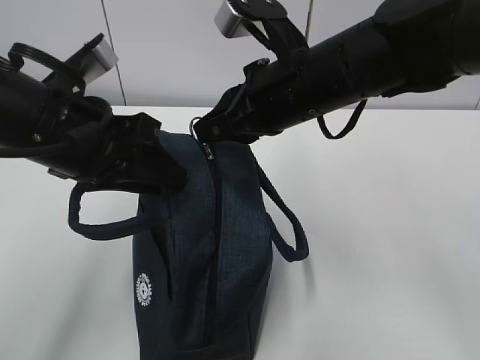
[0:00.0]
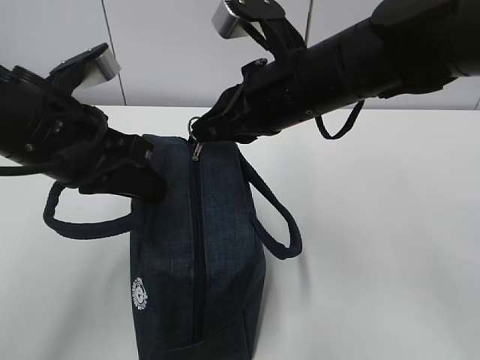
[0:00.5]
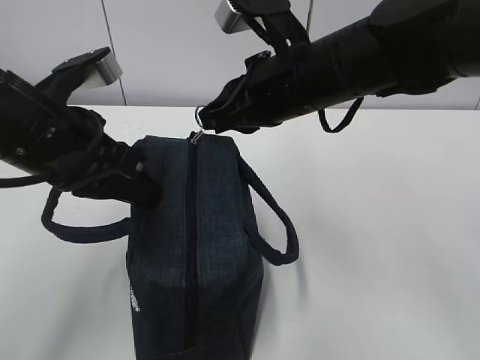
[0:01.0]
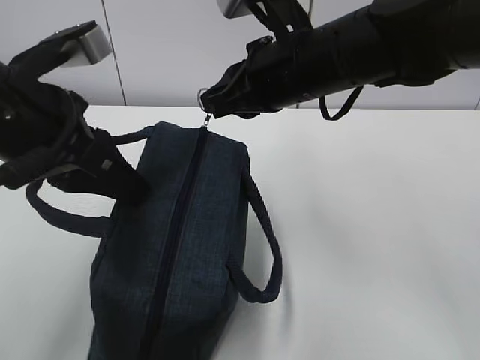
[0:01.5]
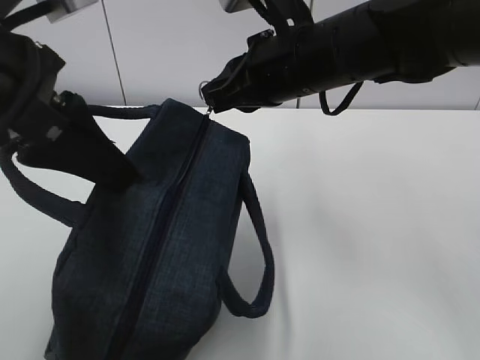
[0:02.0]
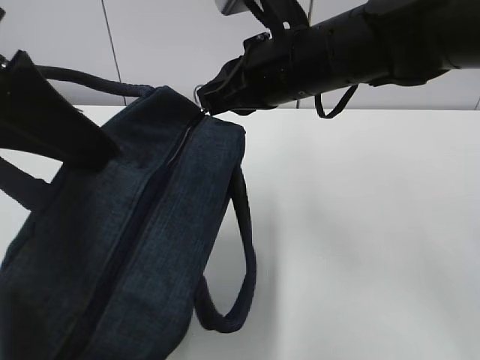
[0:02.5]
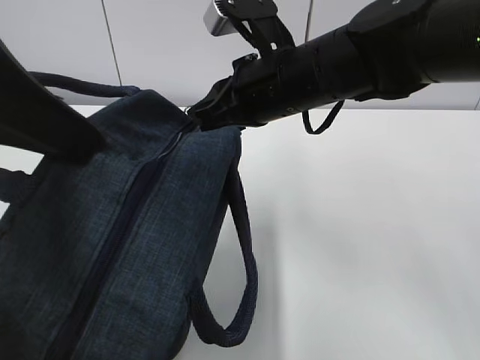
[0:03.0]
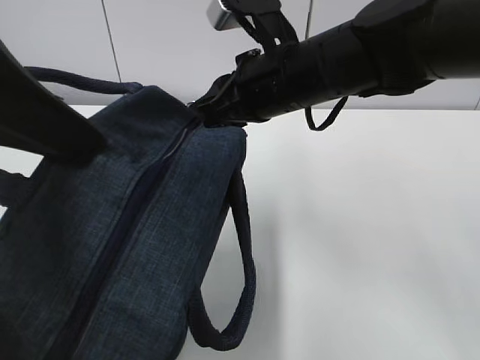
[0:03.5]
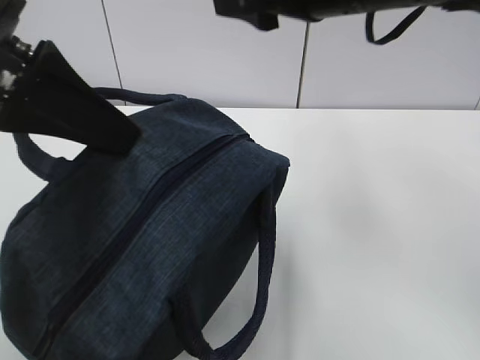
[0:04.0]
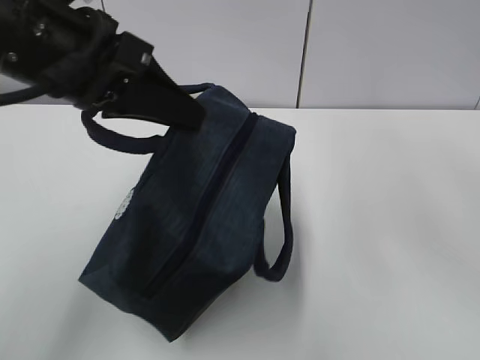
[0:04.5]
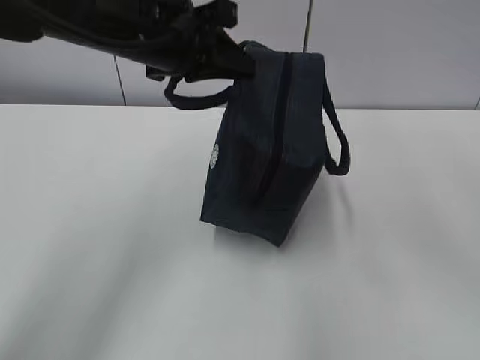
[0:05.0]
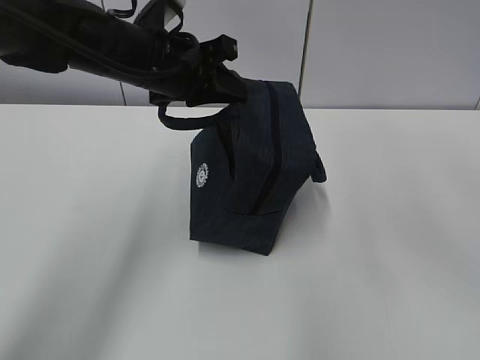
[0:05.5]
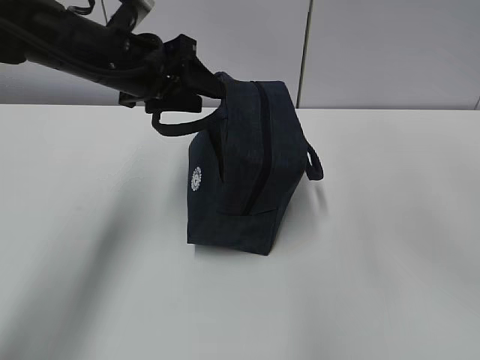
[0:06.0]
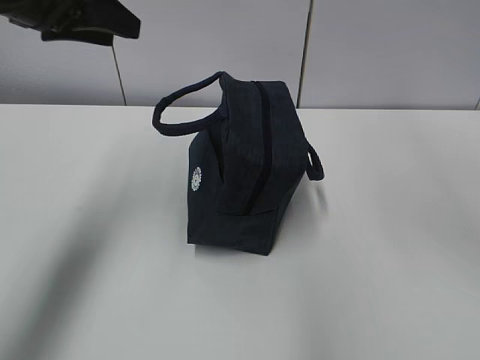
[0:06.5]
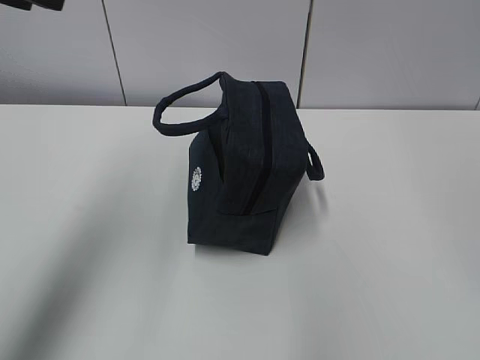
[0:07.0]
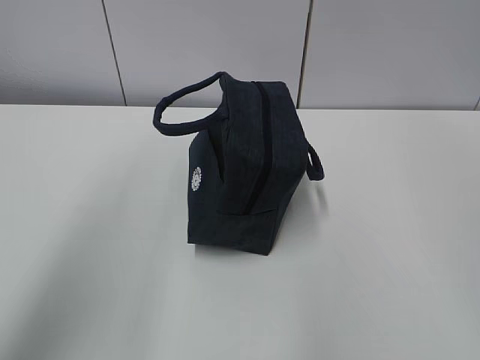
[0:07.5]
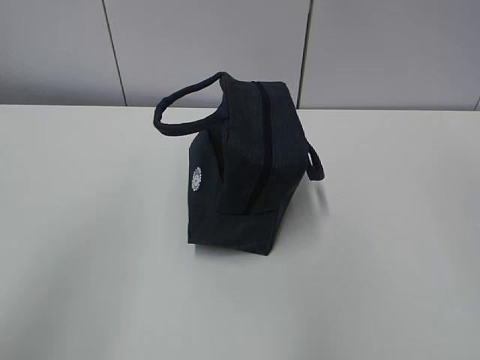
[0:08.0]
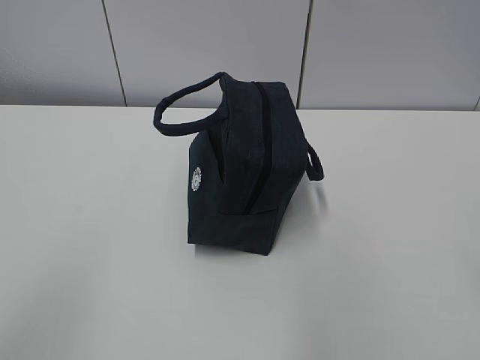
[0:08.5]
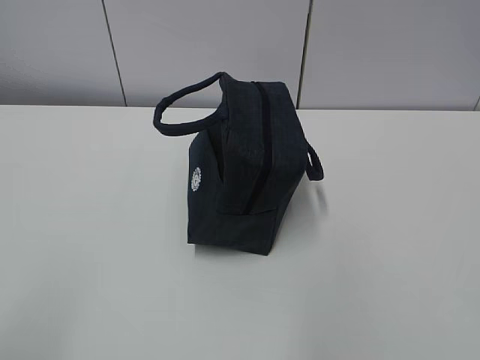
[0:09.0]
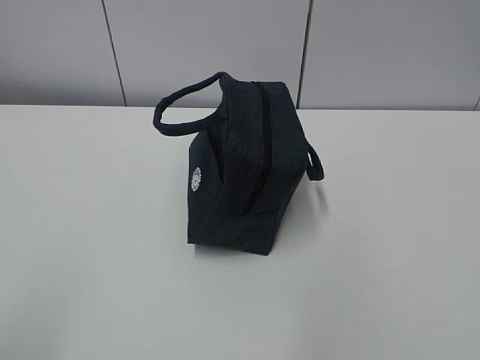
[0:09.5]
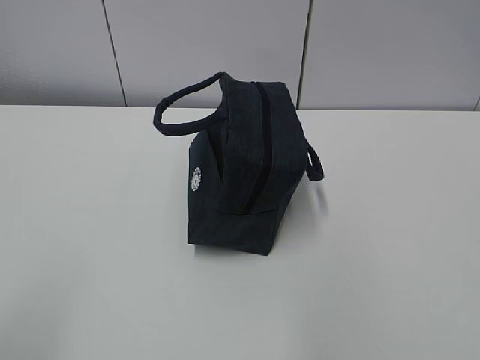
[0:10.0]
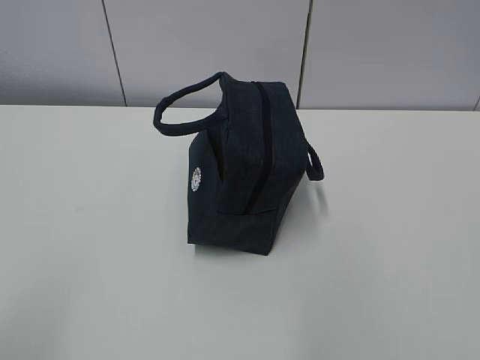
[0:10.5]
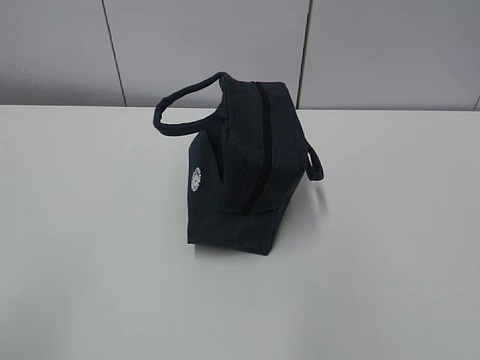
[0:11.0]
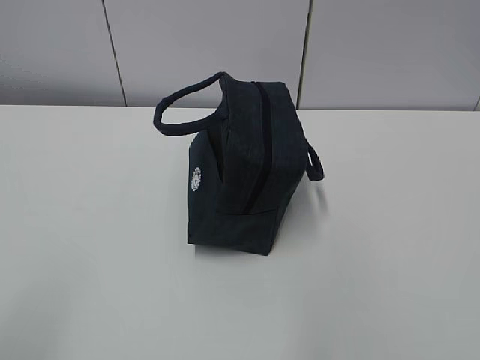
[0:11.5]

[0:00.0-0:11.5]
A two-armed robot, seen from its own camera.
0.0 to 2.0 s: The left gripper travels upward by approximately 5 cm, and closes up.
2.0 to 4.0 s: The right gripper heads upward, covering about 10 cm, and opens its fingers.
4.0 to 6.0 s: The right gripper heads to the right, covering approximately 5 cm. The left gripper moves forward and downward, about 20 cm, and opens.
6.0 to 7.5 s: The right gripper travels upward and backward by about 15 cm. The left gripper moves upward, backward and to the left, about 30 cm.
7.5 to 9.5 s: The left gripper heads backward and downward, covering about 25 cm.

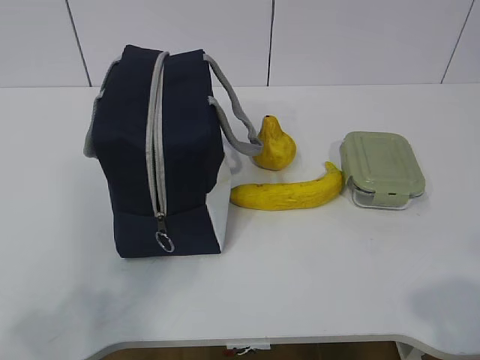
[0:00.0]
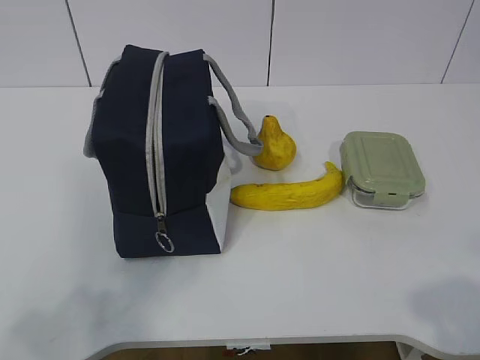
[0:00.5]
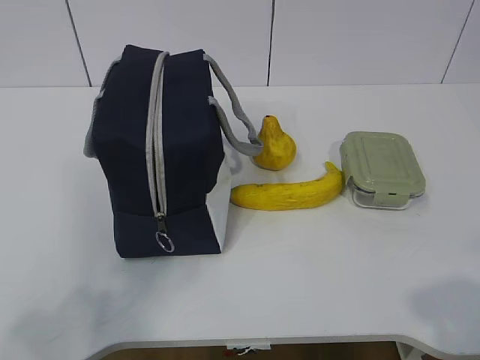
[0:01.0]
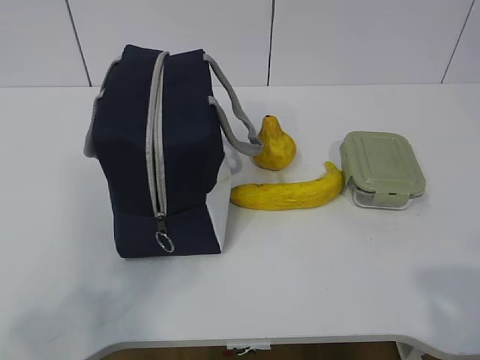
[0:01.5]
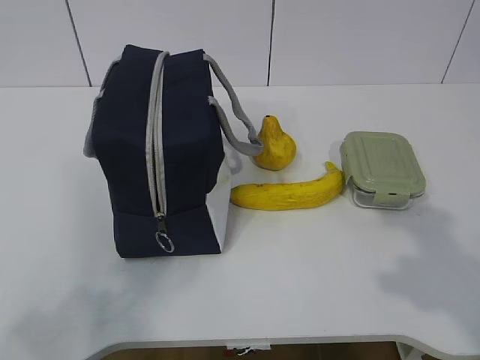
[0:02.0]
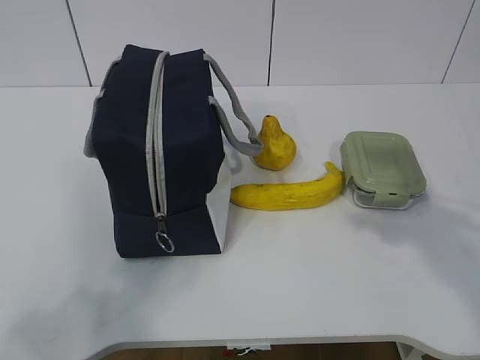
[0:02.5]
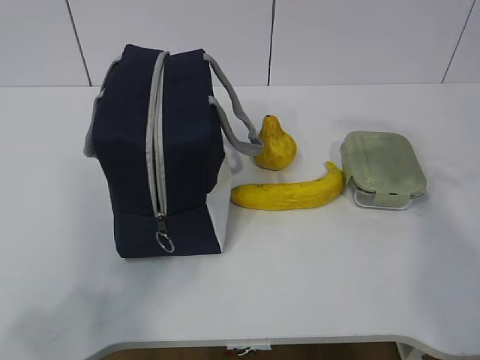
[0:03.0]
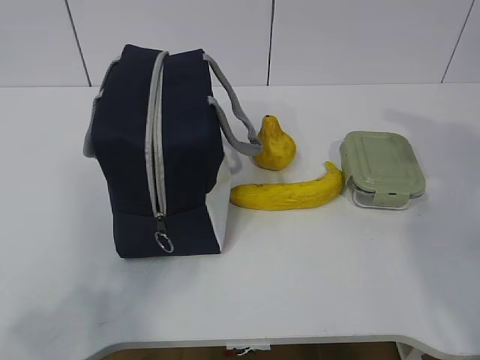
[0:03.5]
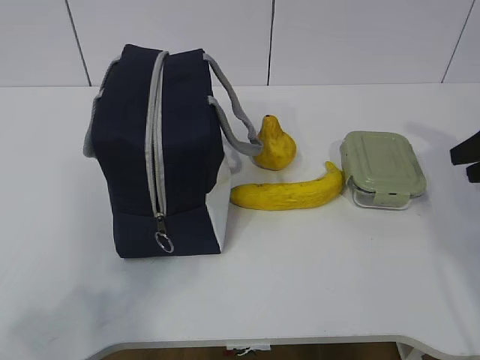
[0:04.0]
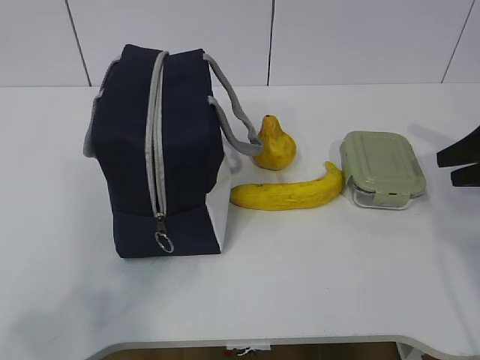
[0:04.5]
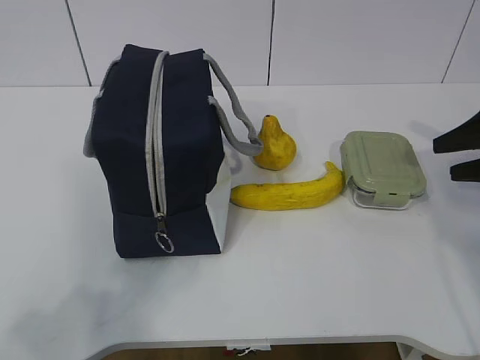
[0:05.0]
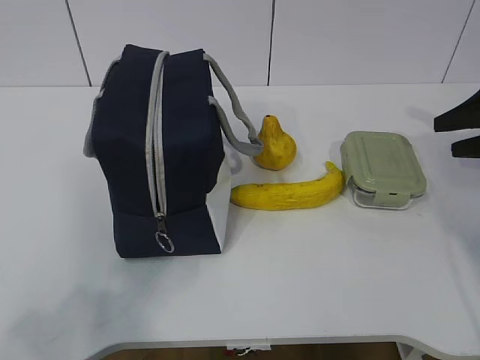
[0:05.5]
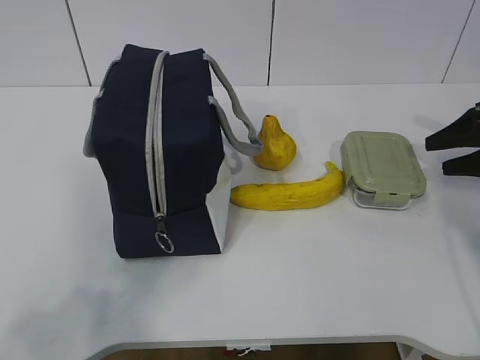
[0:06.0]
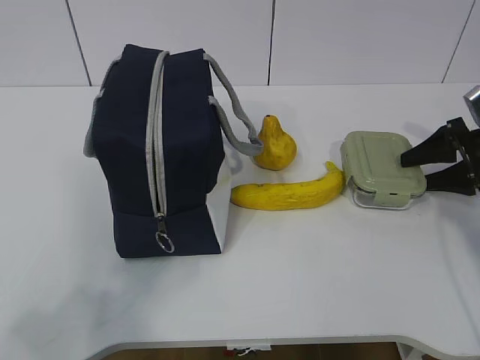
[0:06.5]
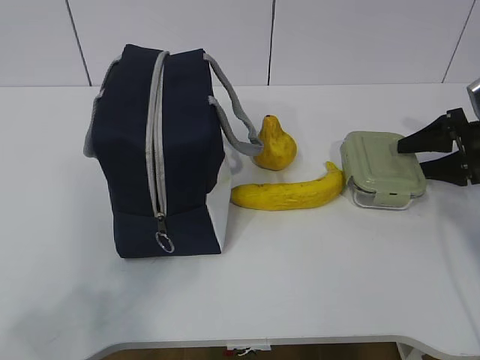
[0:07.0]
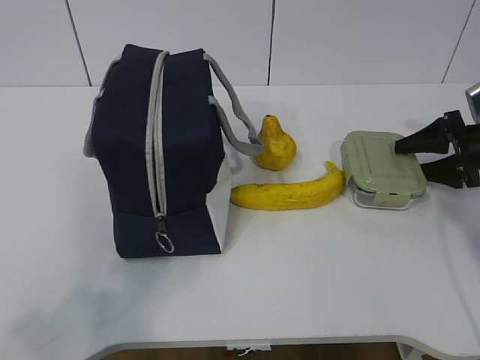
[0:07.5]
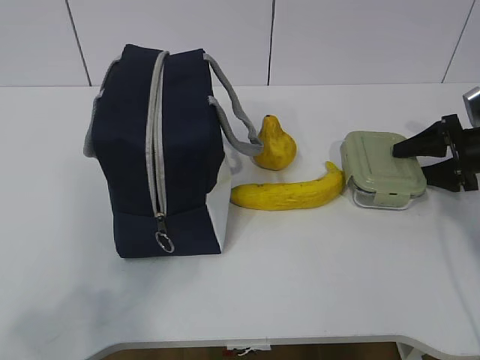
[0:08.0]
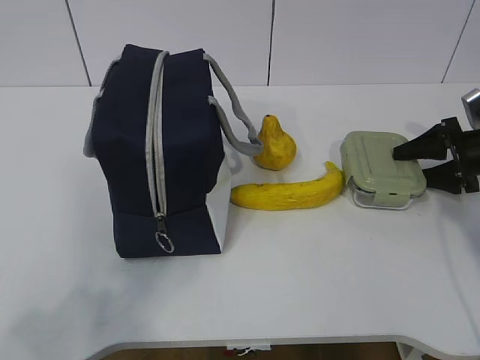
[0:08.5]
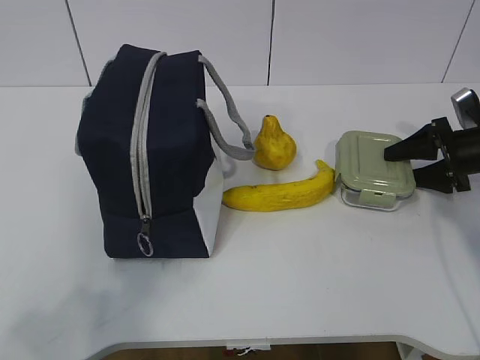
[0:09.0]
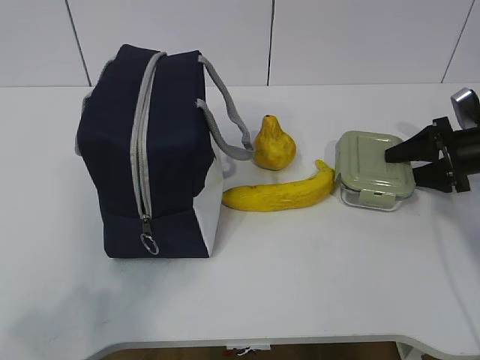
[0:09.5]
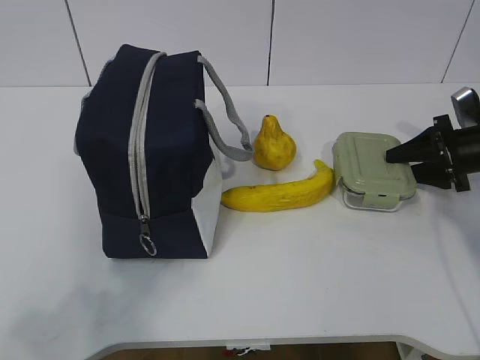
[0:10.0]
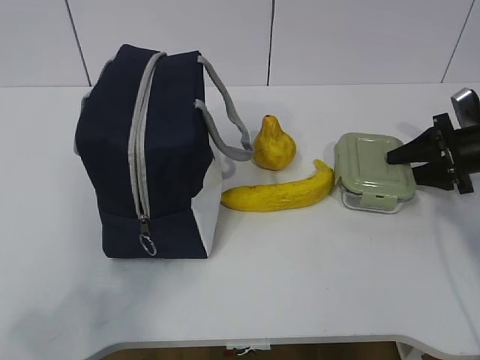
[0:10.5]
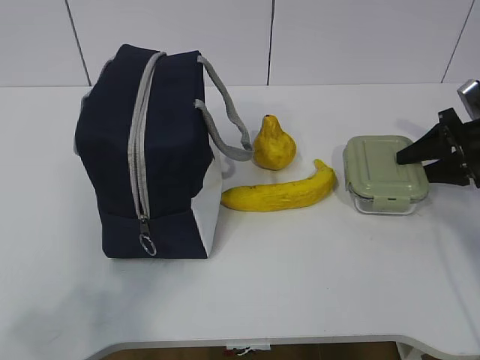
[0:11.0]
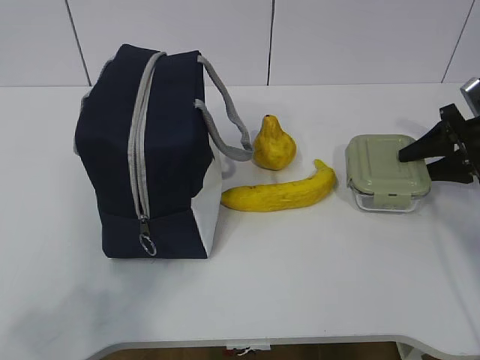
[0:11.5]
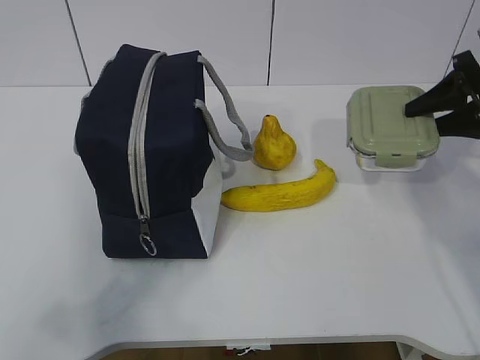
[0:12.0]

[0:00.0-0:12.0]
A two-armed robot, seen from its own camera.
Step, 0.0 to 8.0 s: Grab the lunch box with your right hand.
2.0 to 4.0 s: The right gripper is displaced forward by about 30 cm.
4.0 to 6.0 s: The right gripper goes roughly 10 cm forward and downward.
6.0 to 8.0 s: The right gripper moves roughly 5 cm.
8.0 to 10.0 s: Both grippers stay put.
10.0 to 12.0 s: The right gripper shifts roughly 10 cm upward.

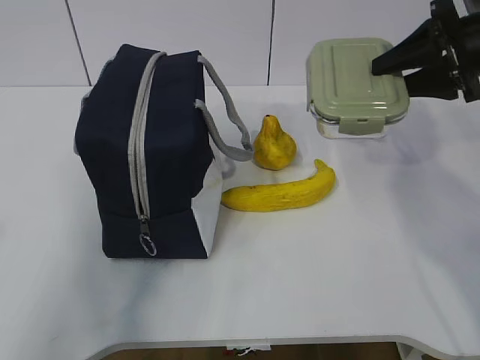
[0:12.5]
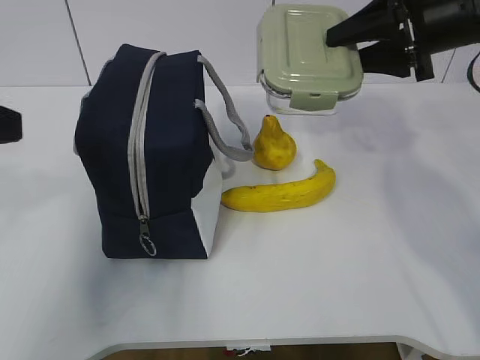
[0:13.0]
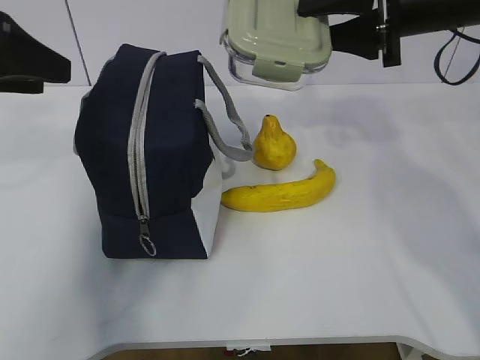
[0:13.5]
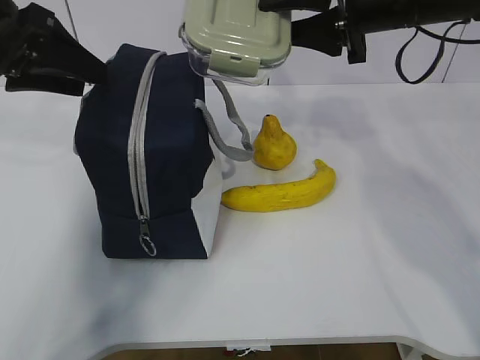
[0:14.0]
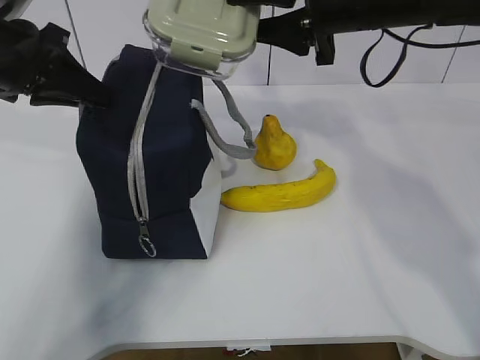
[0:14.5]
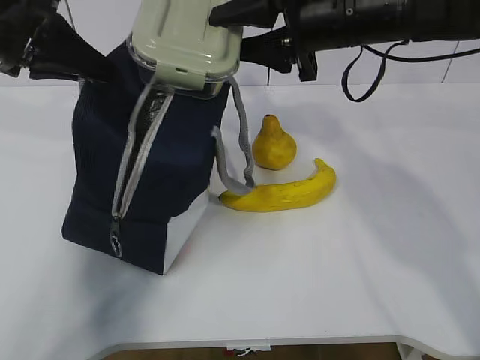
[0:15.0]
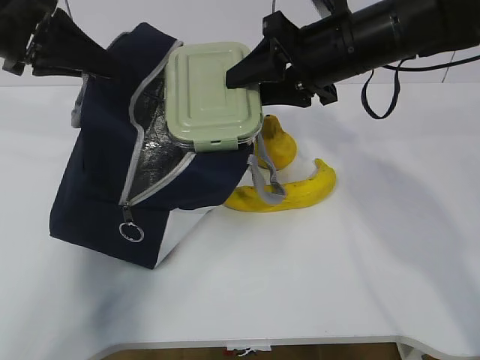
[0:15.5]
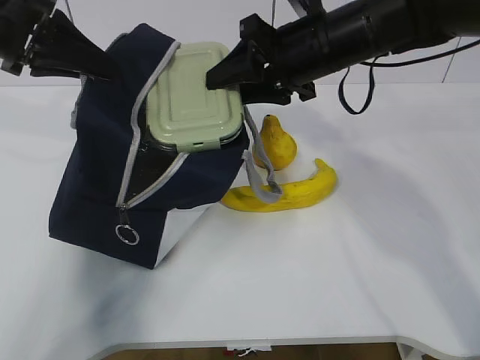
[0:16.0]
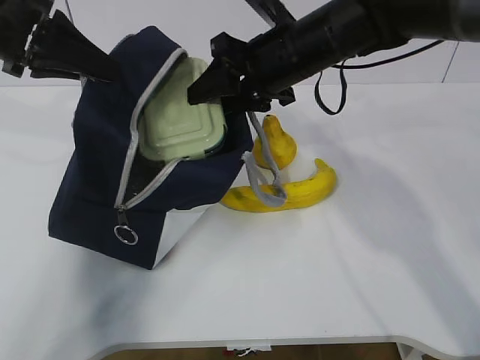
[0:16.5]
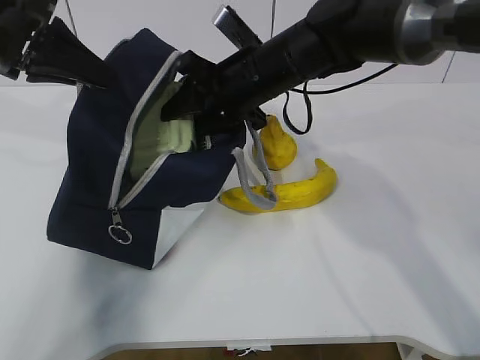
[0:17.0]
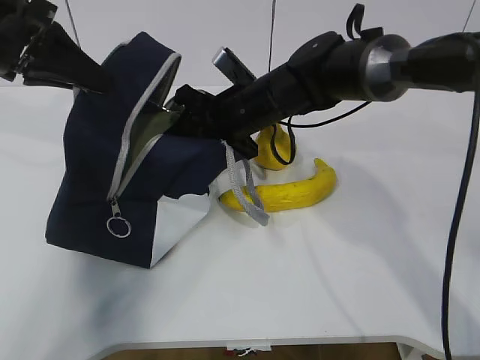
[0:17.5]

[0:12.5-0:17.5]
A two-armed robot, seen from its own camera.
Step, 13.0 to 17.0 s: Place it into the bag with your right hand.
12.5 to 15.0 s: The right gripper is displaced to the left by roughly 15 cm. Meanwhile the left gripper is displaced forward by some 30 cm, and closes.
15.0 to 17.5 s: The right gripper is displaced downward and to the left by roughly 15 cm.
